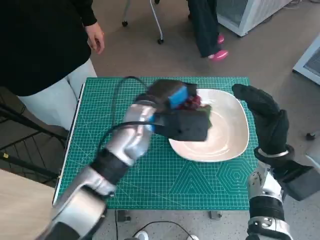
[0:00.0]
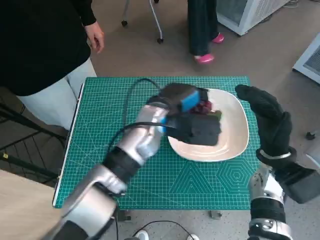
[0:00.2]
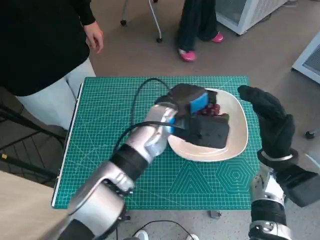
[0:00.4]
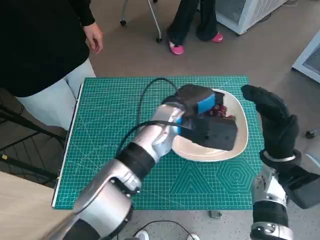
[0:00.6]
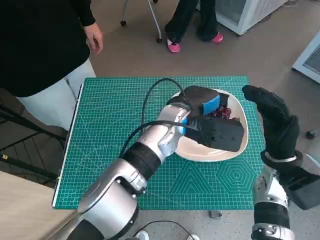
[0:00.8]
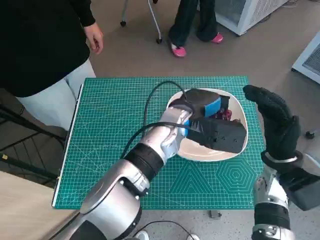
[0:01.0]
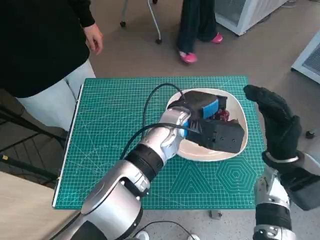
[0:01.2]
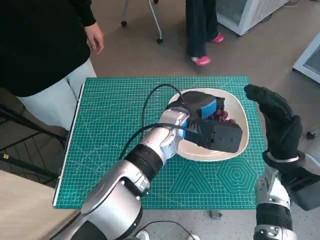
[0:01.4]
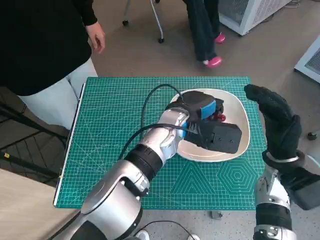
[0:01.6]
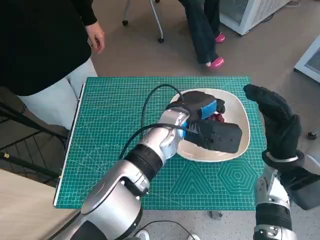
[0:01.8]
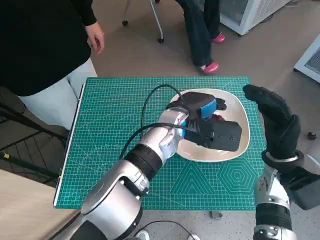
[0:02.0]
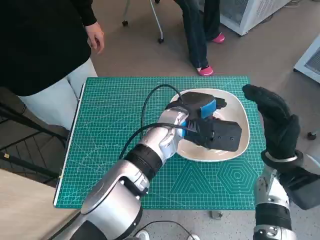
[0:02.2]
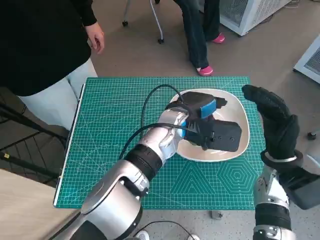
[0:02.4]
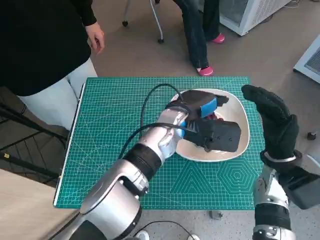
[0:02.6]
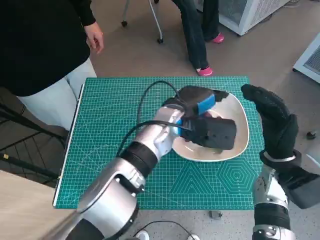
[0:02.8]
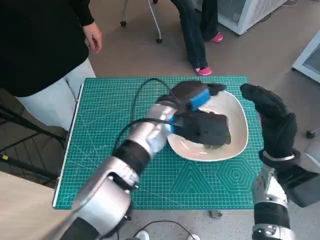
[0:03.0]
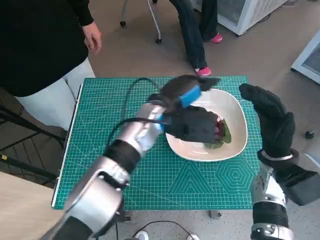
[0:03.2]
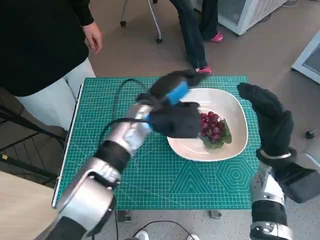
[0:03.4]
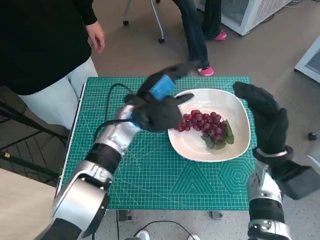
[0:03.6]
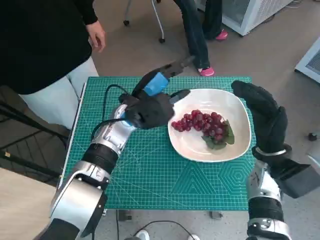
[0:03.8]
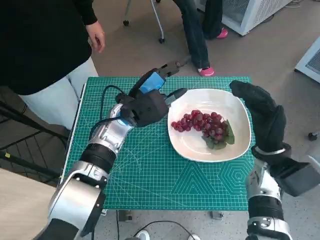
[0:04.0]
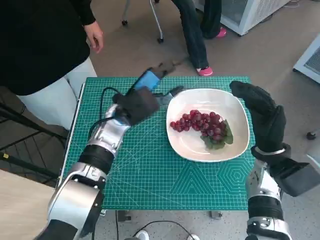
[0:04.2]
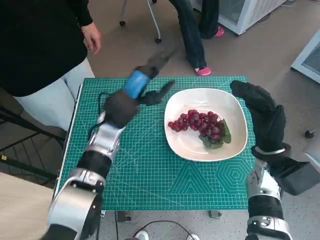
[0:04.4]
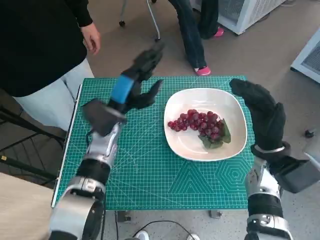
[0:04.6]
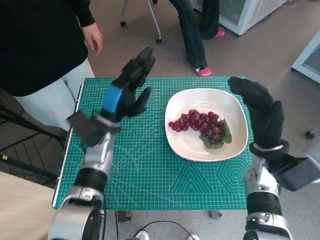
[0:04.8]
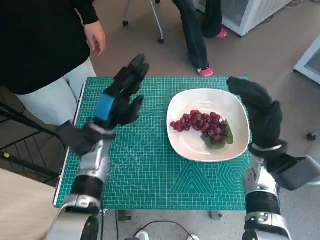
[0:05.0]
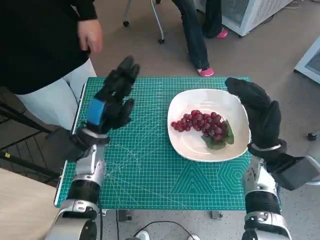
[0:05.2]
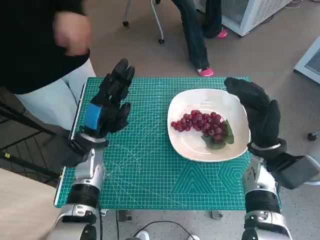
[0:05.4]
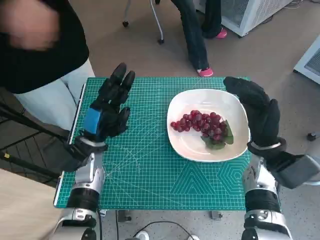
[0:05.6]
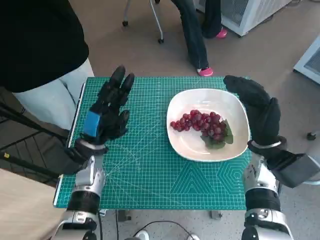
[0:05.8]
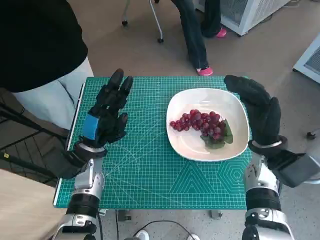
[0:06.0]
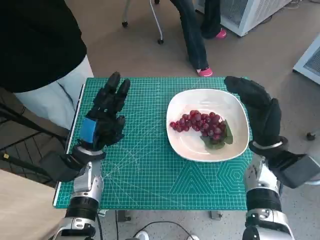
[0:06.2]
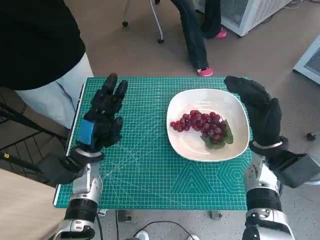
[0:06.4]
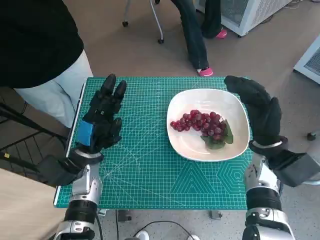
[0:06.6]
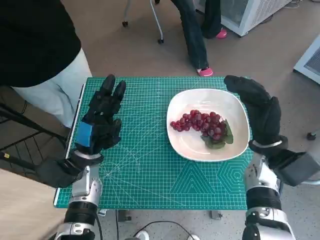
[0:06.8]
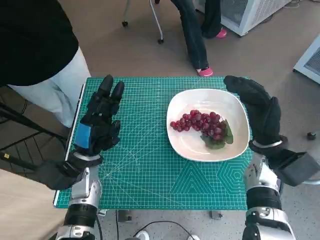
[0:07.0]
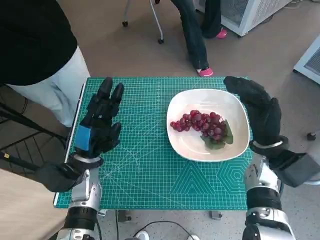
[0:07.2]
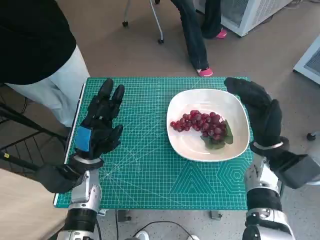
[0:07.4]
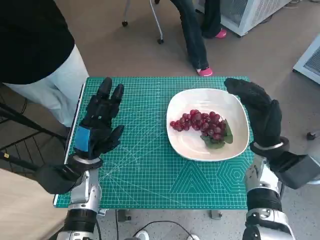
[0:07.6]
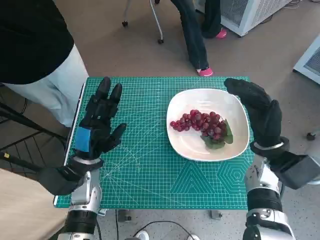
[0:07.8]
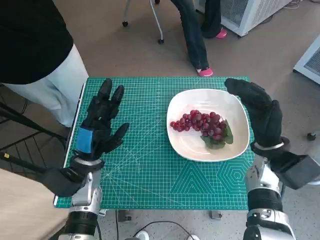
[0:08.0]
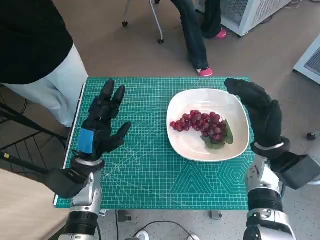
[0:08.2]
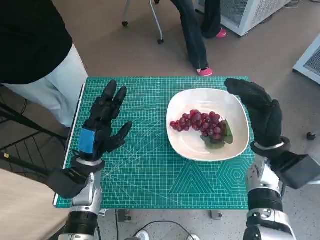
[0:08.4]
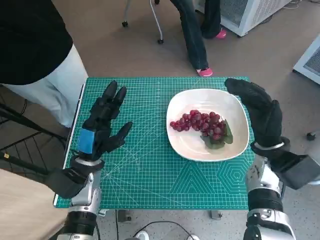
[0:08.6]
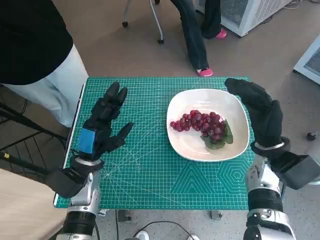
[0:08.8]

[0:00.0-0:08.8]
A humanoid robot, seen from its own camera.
Task of the whole recording: Pick up the grapes and put them on the plate.
Step, 0:00.0 to 0:03.0: Place the grapes in the plate with left hand.
0:00.0 to 0:01.4: The left hand goes approximately 5 cm to the right.
0:01.4 to 0:03.0: The hands stay close to where they were, moving slightly.
0:03.0 to 0:04.4: The left hand heads to the left, covering approximately 10 cm.
0:04.4 to 0:05.8: The left hand travels to the left, downward and backward by approximately 10 cm.
0:05.8 to 0:08.8: There are only small adjustments of the hands.

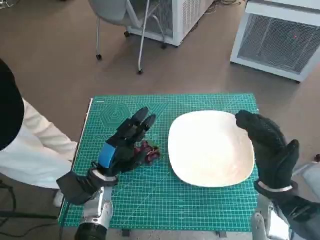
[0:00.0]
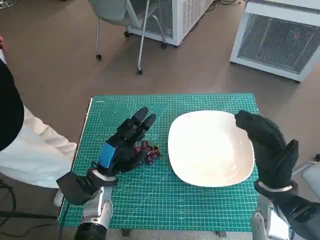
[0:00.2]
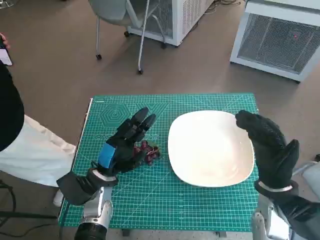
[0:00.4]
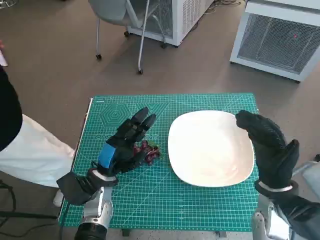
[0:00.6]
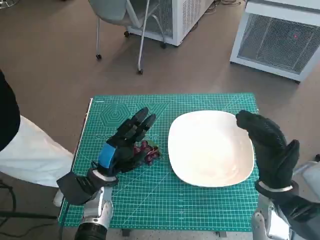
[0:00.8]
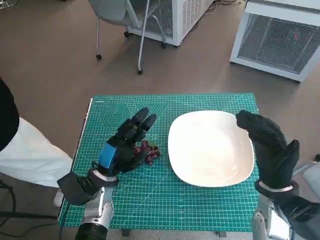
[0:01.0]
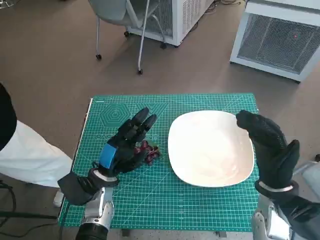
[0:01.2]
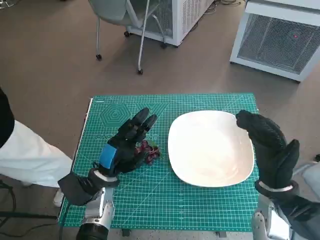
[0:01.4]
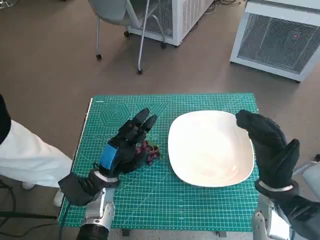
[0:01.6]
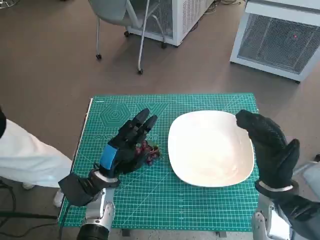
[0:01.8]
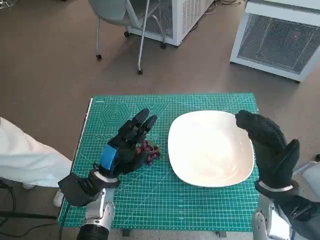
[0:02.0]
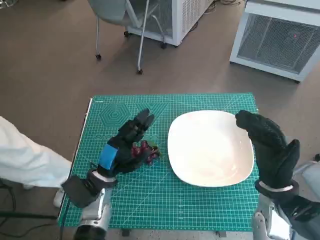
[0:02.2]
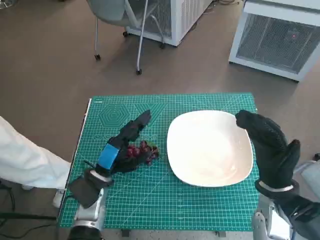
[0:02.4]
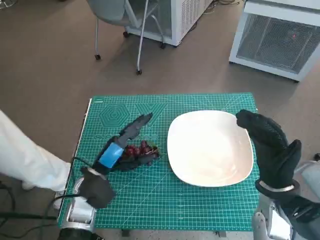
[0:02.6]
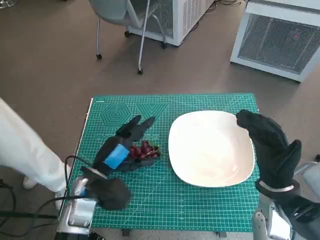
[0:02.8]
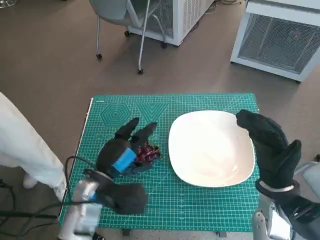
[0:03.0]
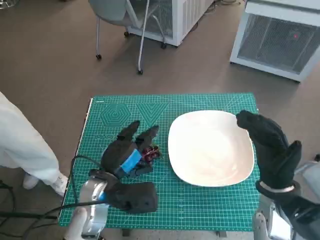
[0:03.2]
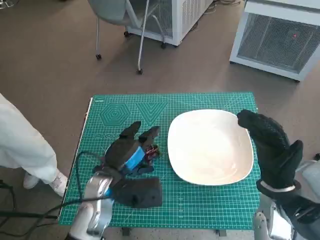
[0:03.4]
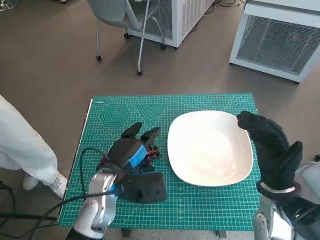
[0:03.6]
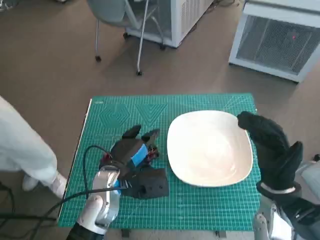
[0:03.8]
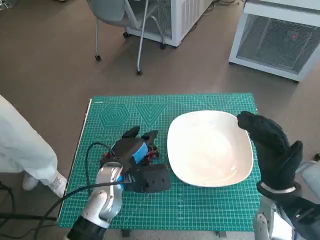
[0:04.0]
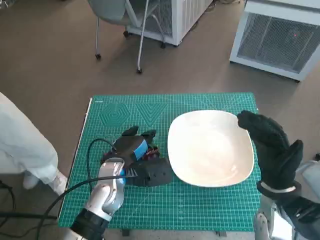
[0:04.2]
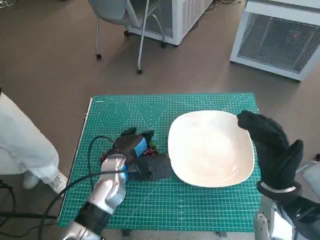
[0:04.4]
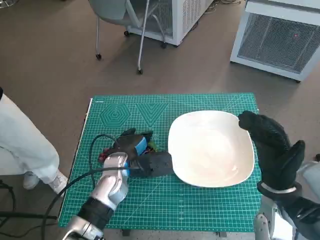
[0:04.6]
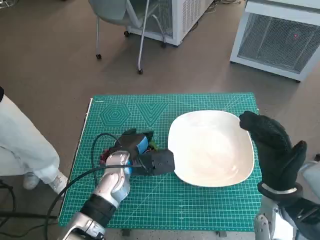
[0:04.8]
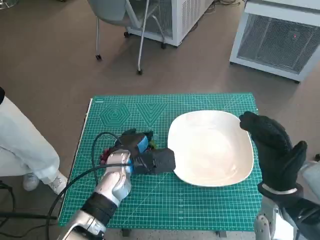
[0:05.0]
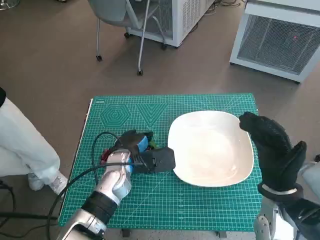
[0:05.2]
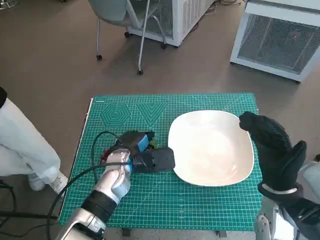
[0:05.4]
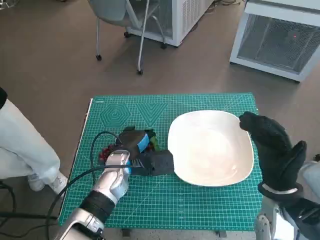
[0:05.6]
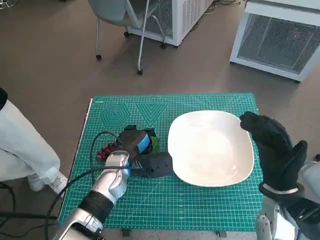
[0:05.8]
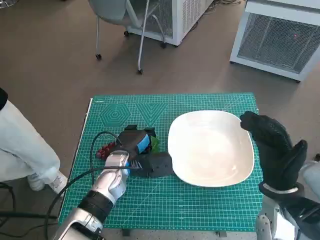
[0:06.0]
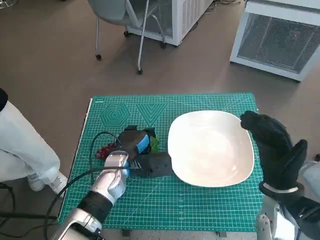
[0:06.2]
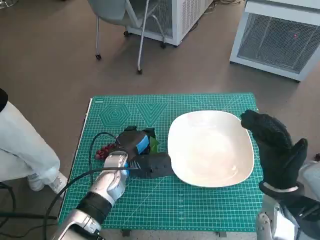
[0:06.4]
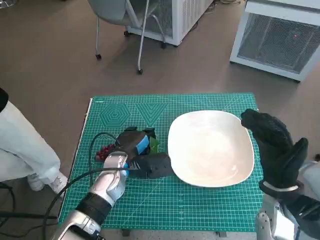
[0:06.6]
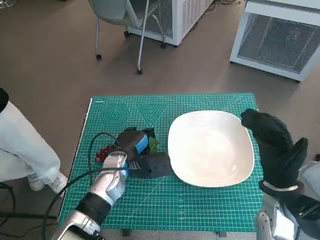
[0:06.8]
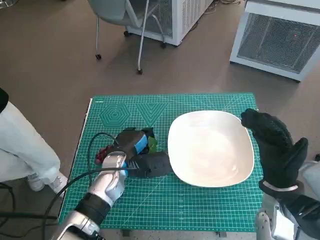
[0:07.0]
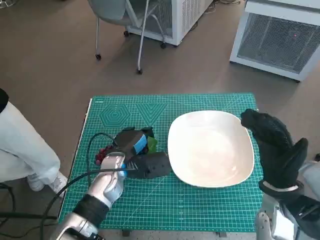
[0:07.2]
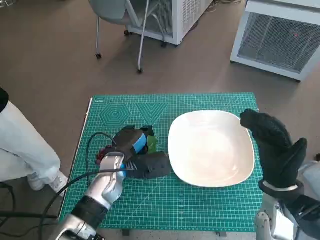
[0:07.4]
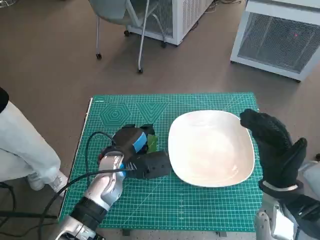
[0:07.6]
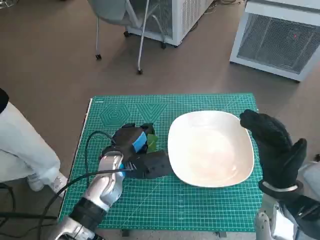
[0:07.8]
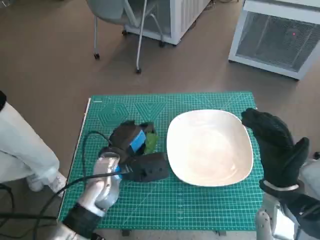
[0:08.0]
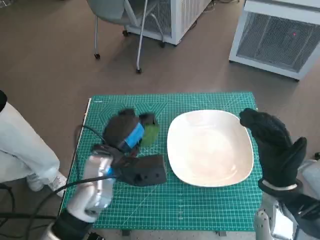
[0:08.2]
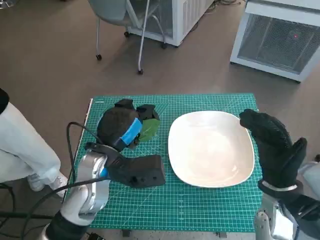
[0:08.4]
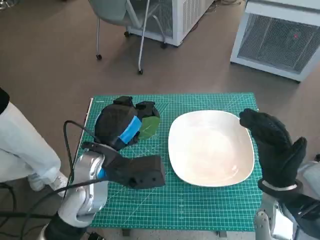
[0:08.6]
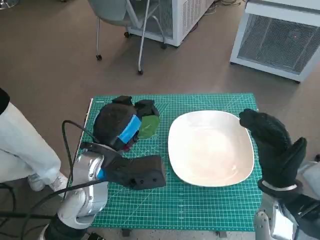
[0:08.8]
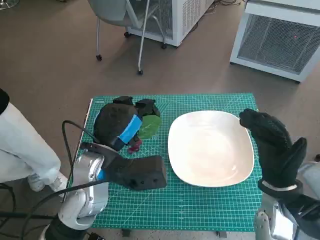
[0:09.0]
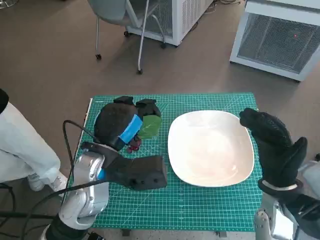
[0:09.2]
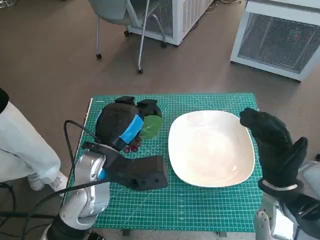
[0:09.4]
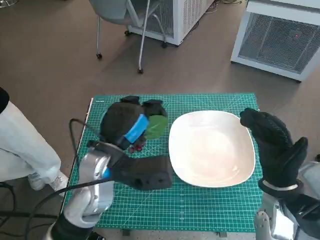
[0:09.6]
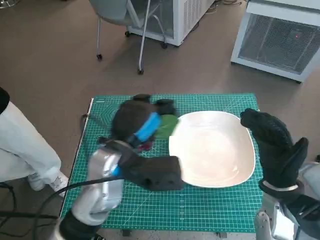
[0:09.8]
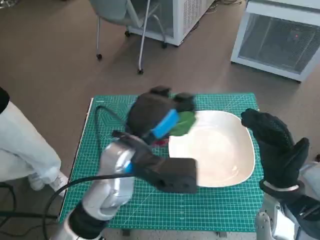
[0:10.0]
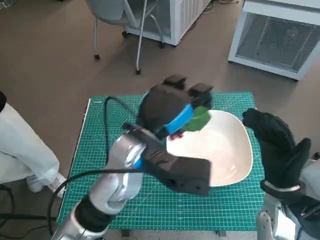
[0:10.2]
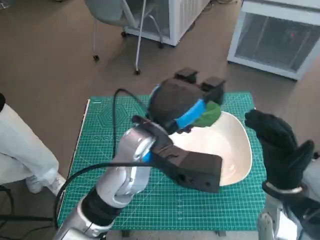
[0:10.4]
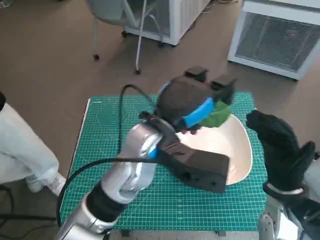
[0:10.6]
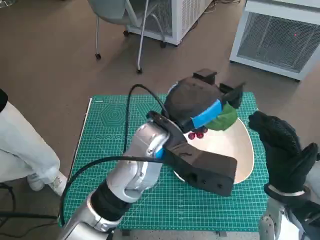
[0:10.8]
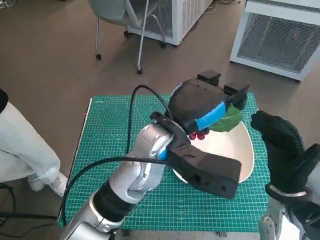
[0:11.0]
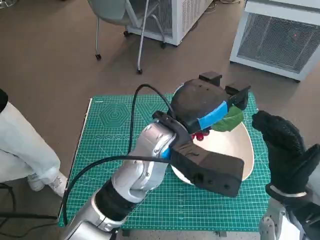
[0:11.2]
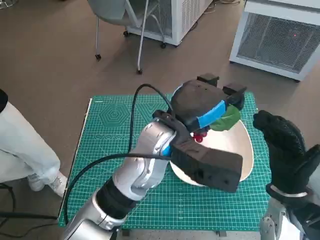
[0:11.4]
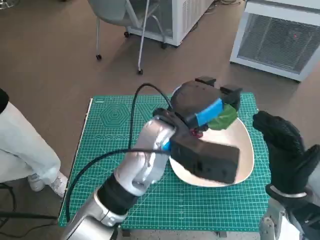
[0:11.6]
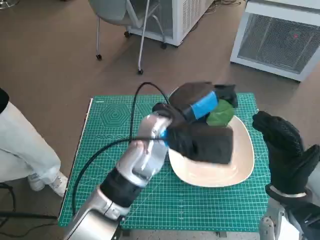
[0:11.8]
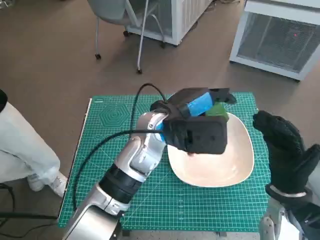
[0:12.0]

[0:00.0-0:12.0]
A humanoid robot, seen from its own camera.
Task of the whole recording: Pick up the grapes and put them on the plate.
Step, 0:00.0 to 0:07.0: Grasp the grapes with left hand.
0:03.0 to 0:04.4: The left hand shifts by about 5 cm.
0:04.4 to 0:07.6: The hands move only a little.
0:07.6 to 0:09.0: The left hand moves upward, about 10 cm.
0:09.0 to 0:10.4: The left hand moves to the right, roughly 10 cm.
0:10.4 to 0:12.0: The left hand changes place by roughly 5 cm.

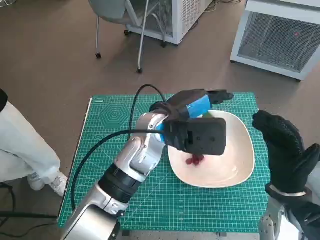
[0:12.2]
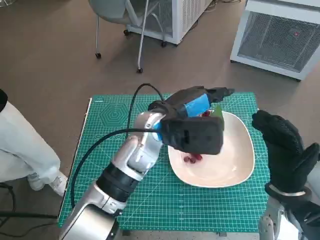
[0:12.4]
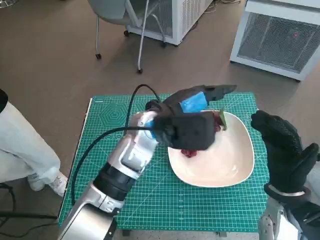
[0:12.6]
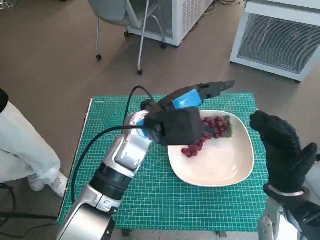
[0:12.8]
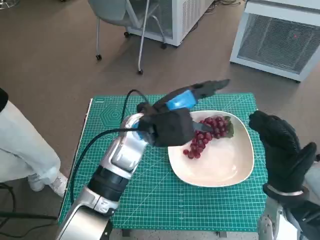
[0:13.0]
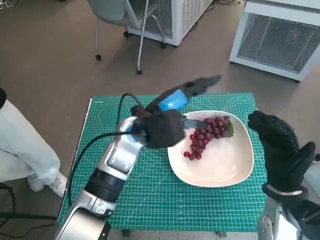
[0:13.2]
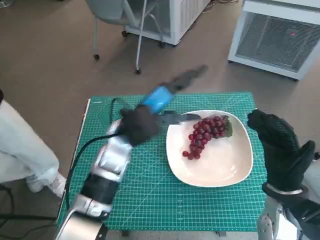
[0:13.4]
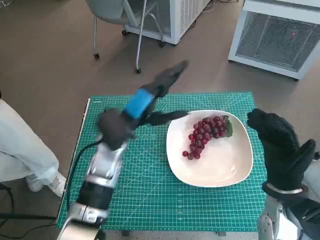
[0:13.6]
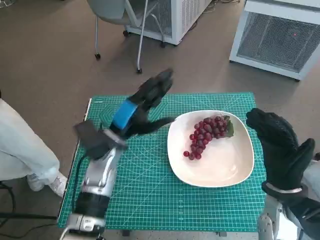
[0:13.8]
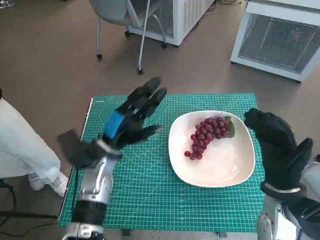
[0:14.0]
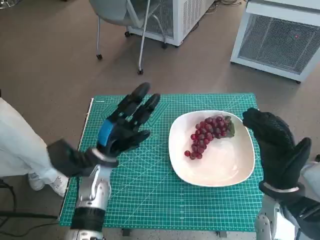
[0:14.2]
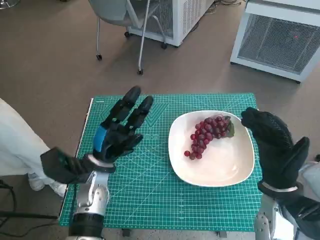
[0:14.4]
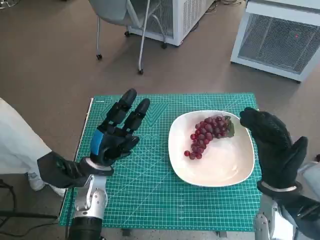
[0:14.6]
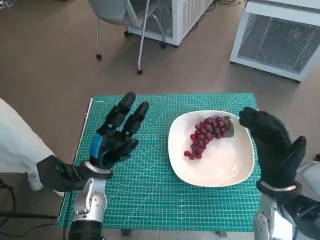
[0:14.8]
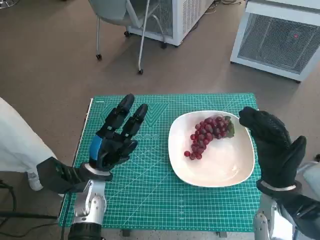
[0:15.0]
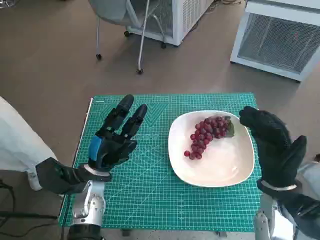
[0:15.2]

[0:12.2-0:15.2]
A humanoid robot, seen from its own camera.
Task of the whole recording: Pick up the grapes and put them on the plate.
0:12.2 to 0:13.8: The left hand moves to the left and downward, roughly 10 cm.
0:13.8 to 0:15.2: The left hand moves downward and to the left, approximately 10 cm.
